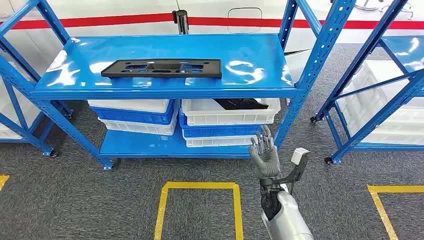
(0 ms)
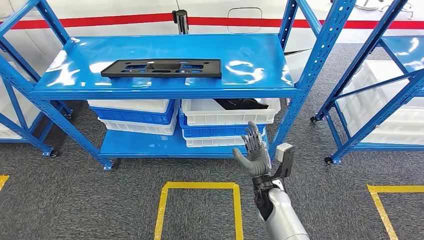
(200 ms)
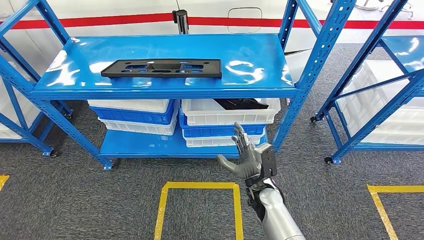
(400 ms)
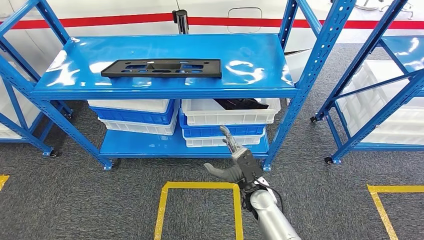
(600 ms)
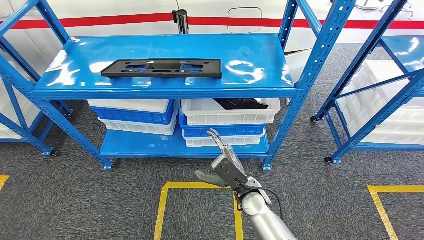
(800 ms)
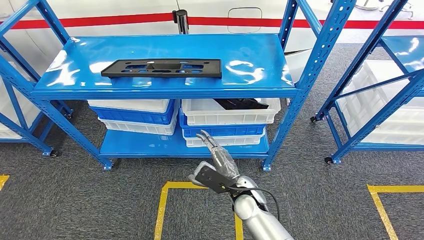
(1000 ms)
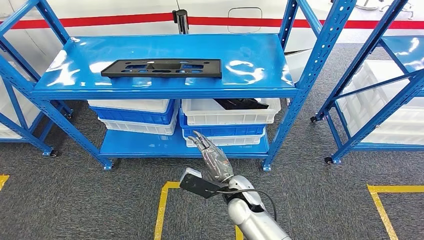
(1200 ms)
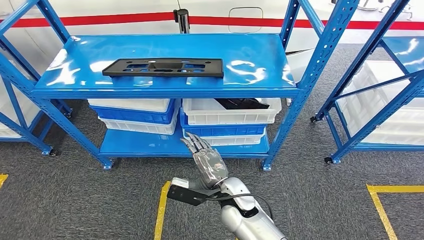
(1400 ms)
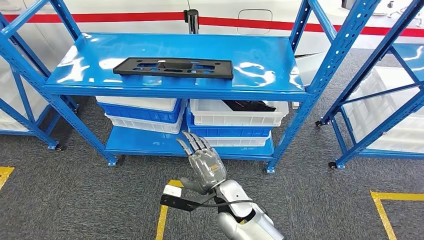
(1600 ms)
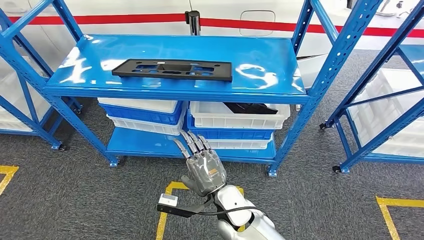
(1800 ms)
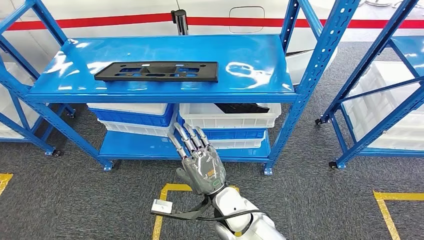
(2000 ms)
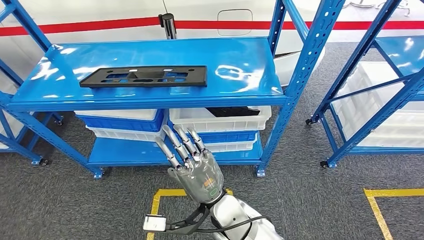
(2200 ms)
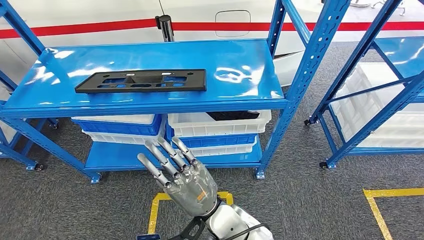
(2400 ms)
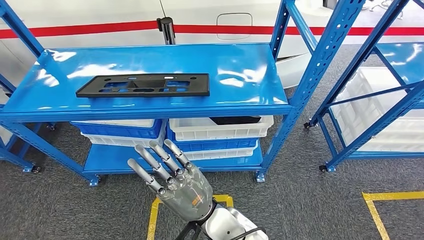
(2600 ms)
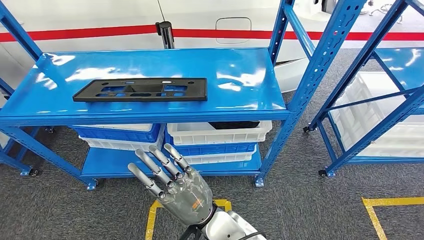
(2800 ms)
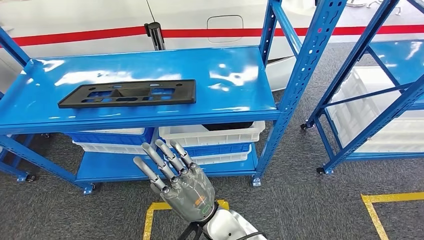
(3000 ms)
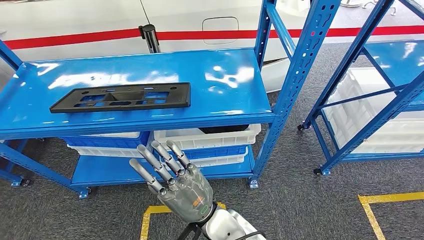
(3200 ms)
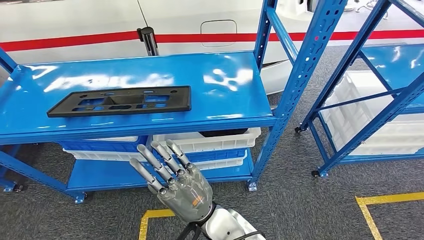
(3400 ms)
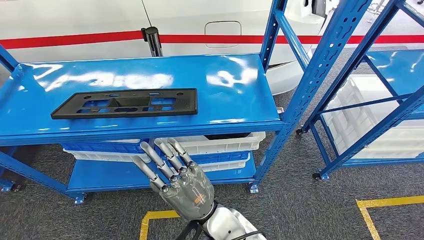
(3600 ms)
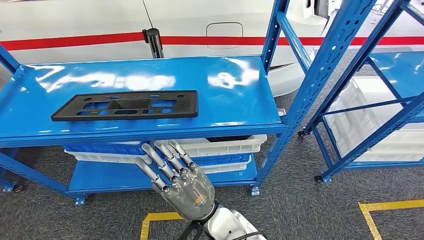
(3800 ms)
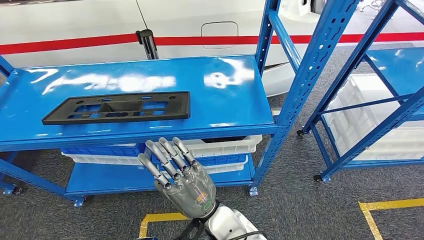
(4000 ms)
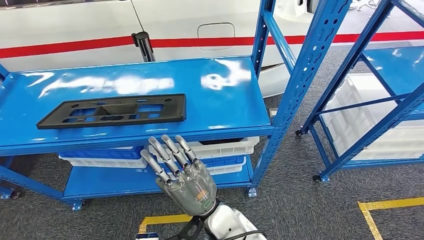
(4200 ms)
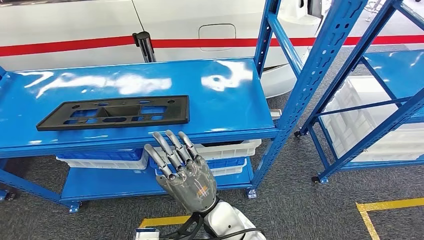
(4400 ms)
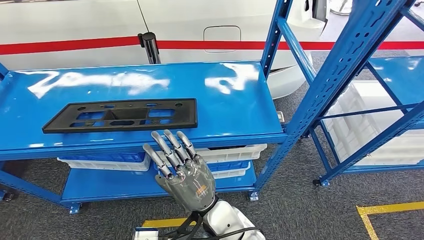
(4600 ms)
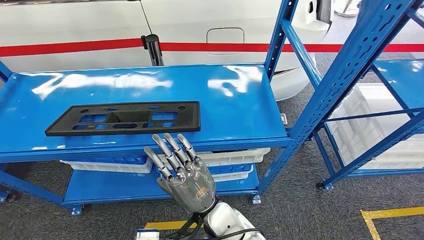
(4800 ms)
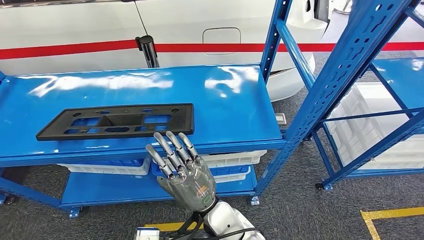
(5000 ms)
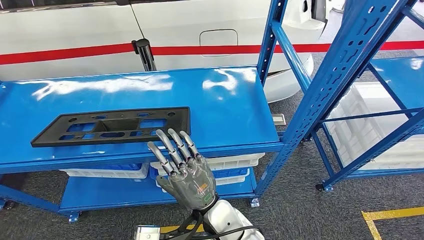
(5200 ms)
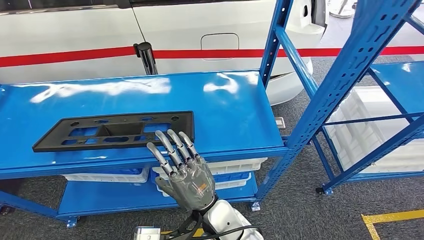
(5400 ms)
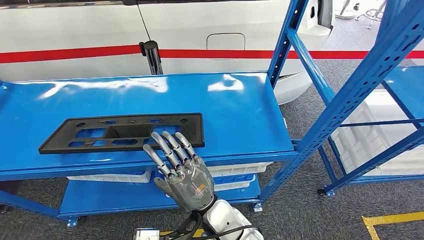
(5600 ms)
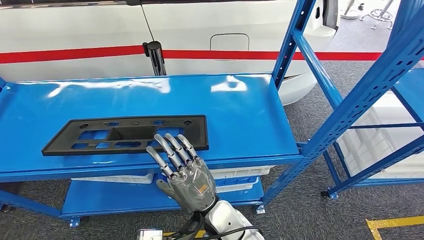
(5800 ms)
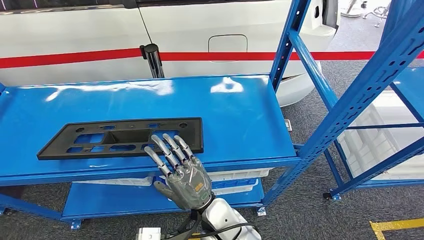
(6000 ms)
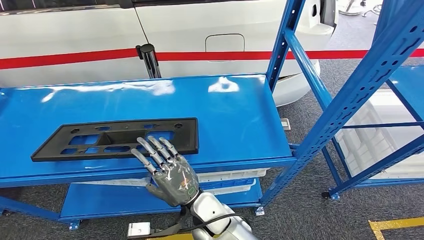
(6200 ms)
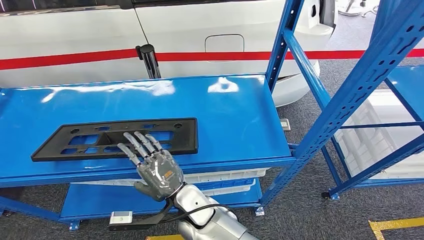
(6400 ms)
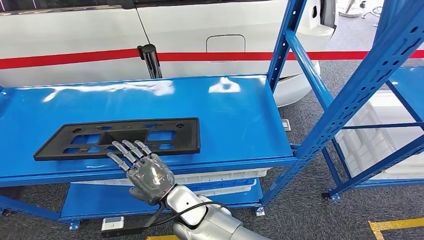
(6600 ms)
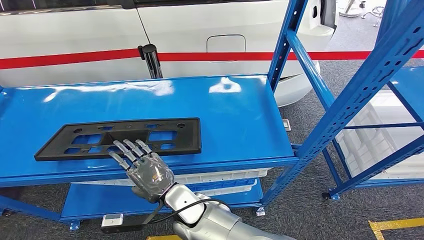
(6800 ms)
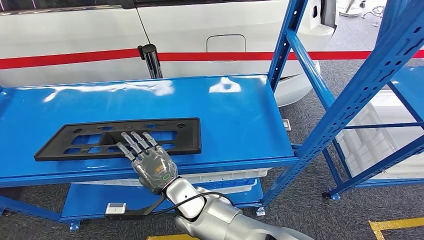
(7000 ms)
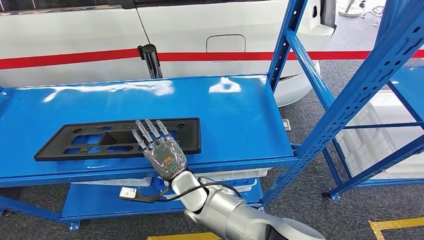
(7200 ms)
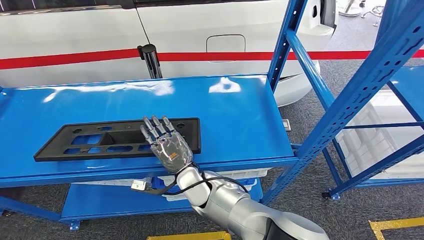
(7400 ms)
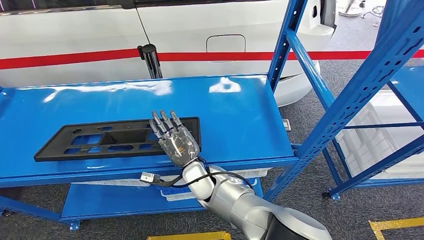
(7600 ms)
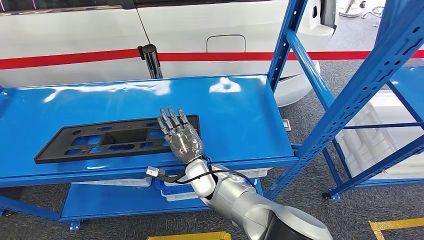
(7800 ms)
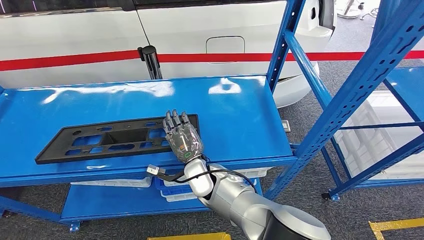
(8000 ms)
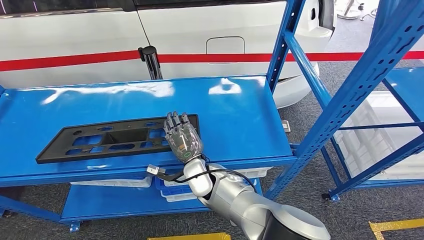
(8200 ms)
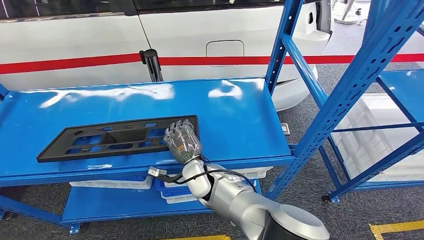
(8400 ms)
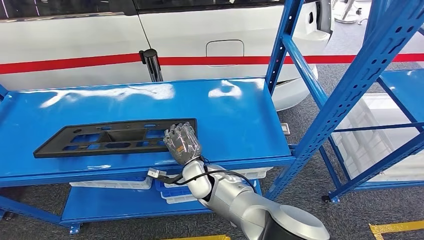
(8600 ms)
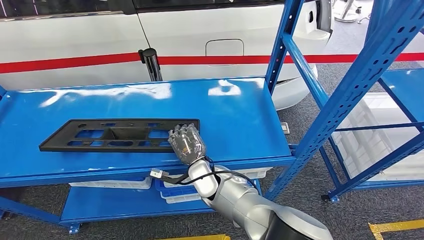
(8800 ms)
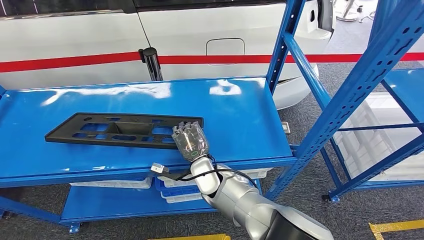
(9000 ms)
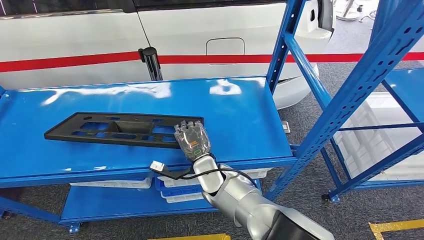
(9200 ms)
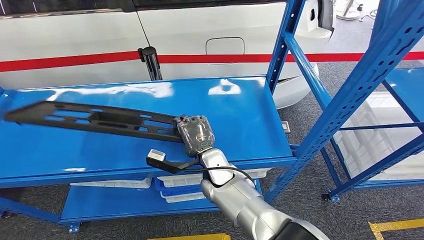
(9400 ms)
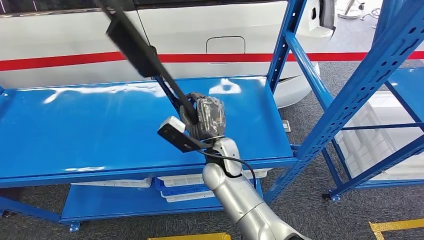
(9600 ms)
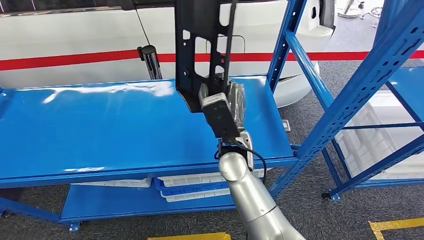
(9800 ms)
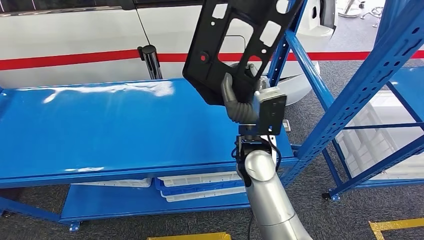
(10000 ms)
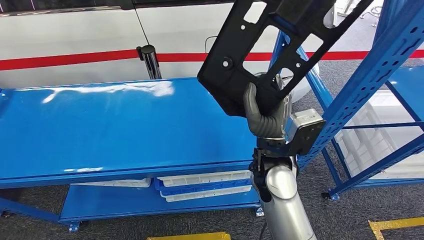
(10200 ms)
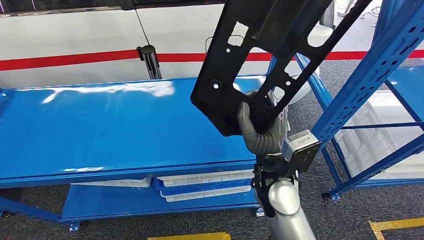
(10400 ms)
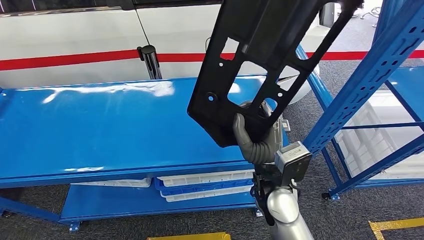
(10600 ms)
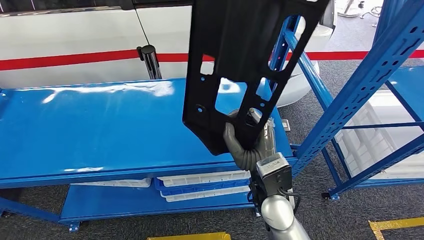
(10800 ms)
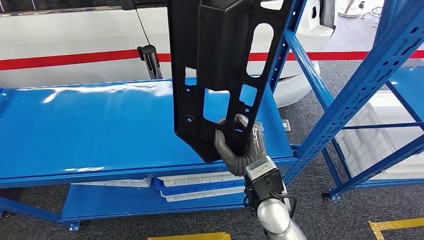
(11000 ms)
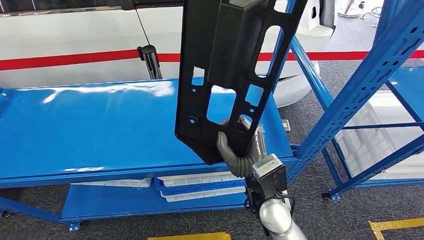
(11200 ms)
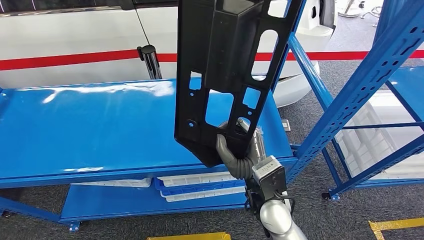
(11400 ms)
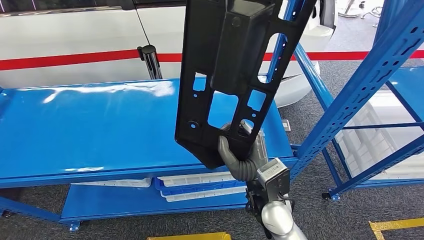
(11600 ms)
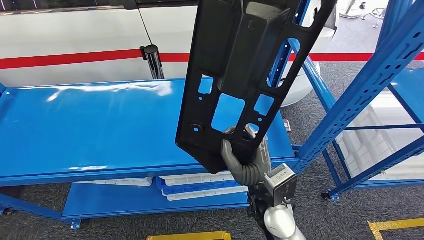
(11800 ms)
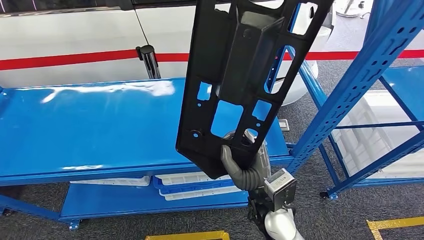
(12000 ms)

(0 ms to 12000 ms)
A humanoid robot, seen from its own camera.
Step, 0 ms - 11800 ms: Pick up the large material from the shelf.
6000 ms - 7600 ms: The right hand is displaced forward by roughly 10 cm.

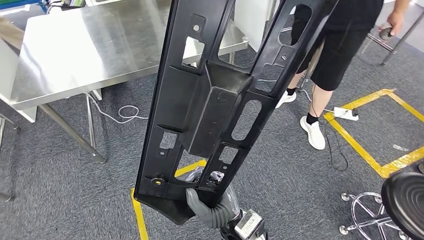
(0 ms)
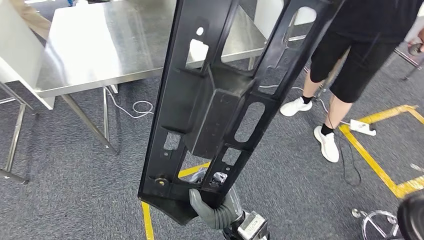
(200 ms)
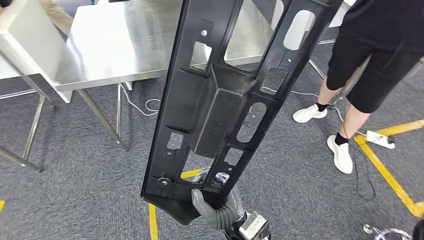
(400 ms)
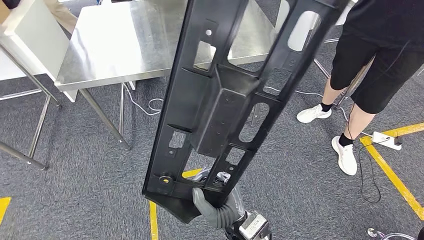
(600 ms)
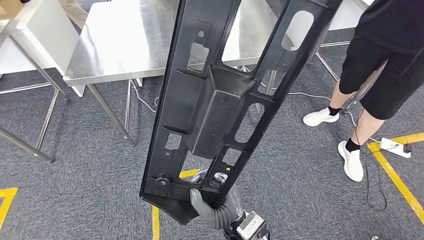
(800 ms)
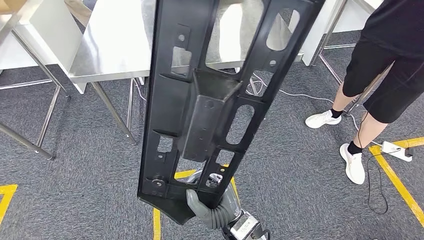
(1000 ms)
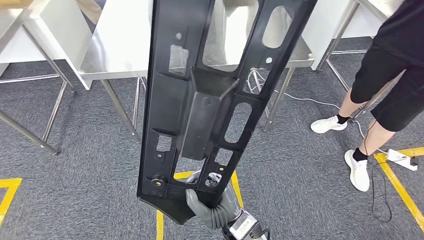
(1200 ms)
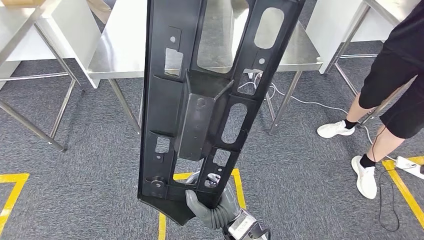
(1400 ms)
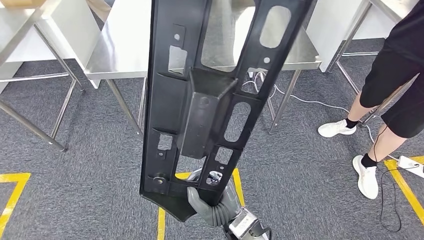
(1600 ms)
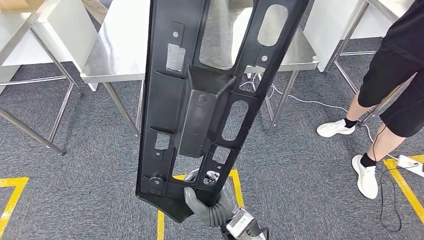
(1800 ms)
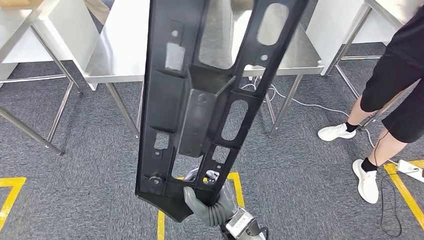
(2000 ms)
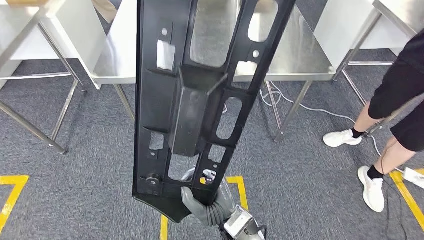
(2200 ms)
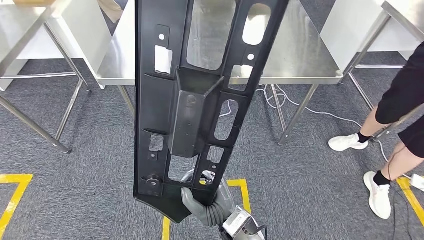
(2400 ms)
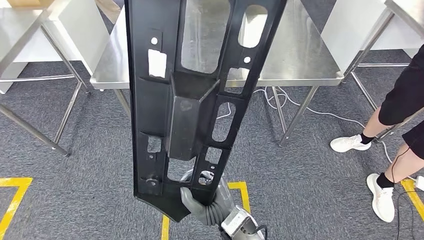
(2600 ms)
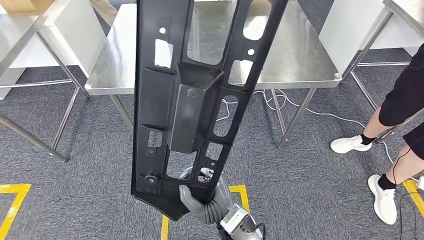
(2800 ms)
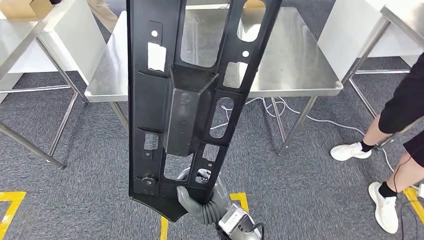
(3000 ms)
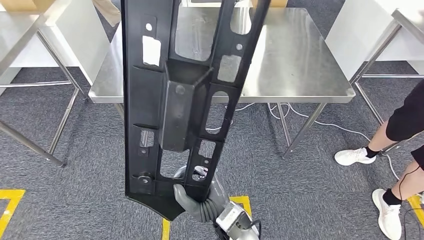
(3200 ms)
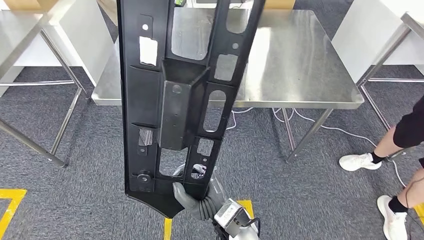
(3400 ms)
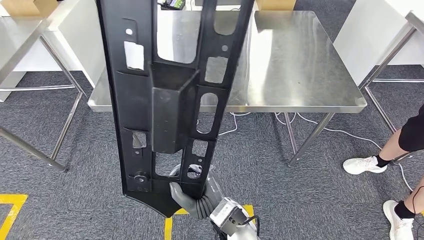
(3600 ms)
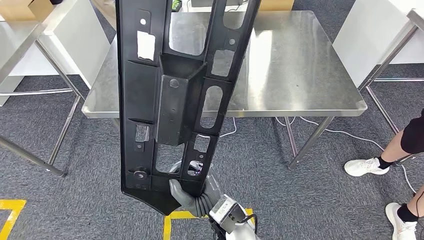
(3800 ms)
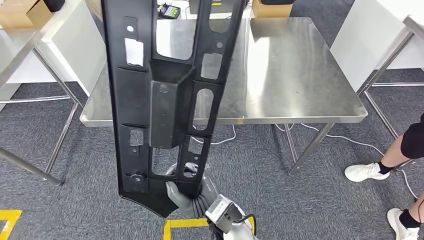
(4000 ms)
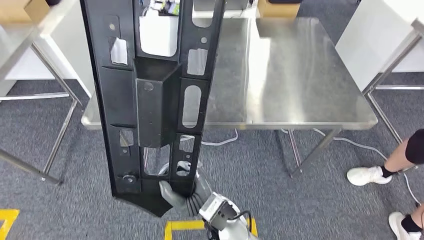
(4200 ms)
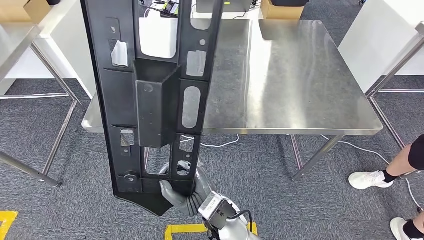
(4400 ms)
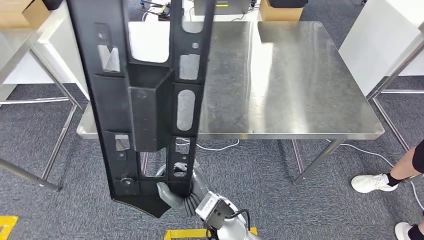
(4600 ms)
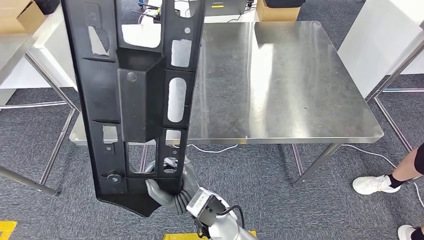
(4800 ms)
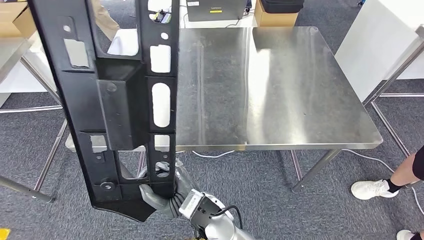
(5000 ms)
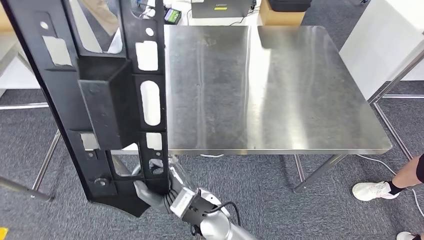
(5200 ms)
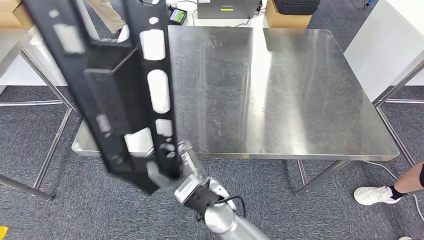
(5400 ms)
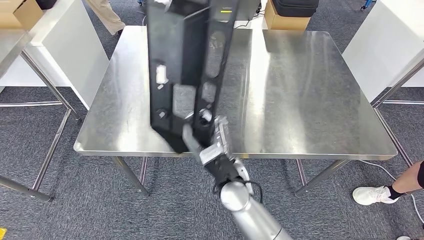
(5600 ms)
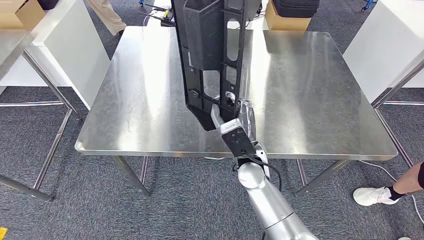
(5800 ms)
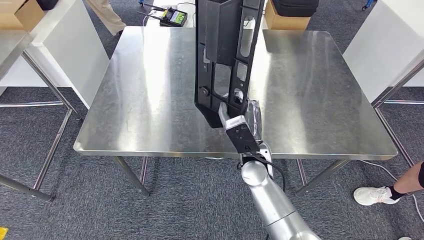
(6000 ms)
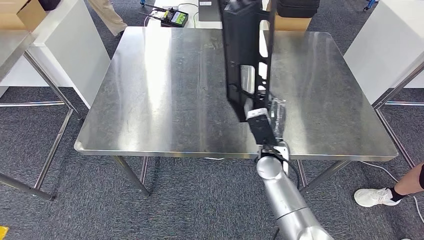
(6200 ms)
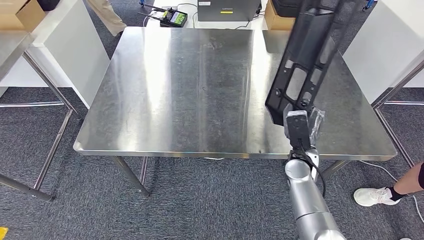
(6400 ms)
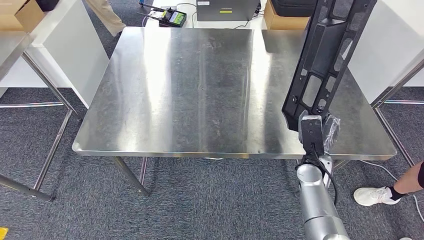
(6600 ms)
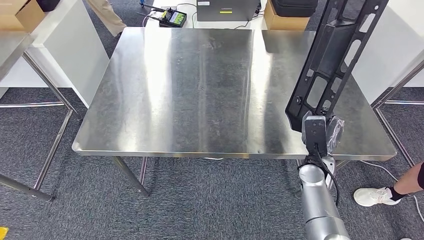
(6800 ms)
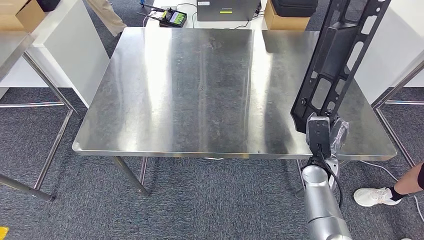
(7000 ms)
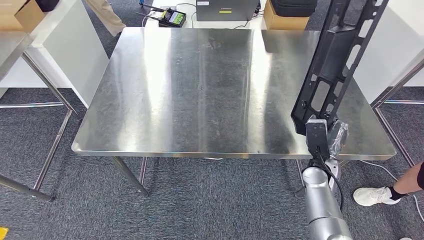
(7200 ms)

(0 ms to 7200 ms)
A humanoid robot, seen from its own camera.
Step, 0 ms - 4800 ms: Move the large material to the workbench.
